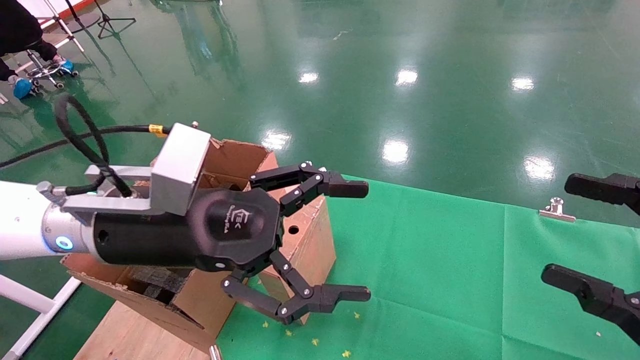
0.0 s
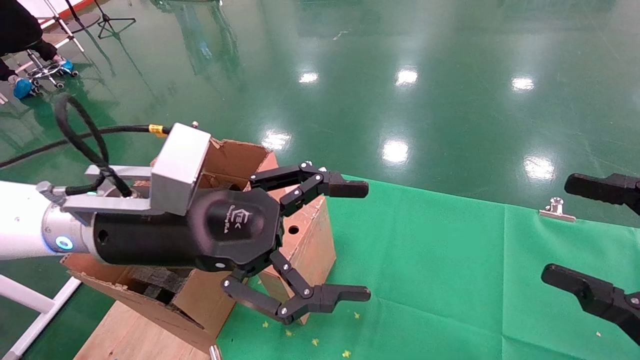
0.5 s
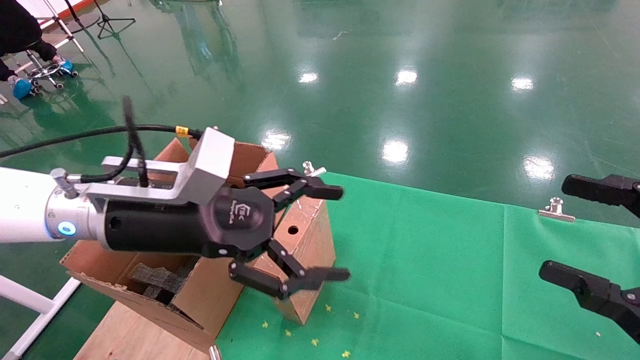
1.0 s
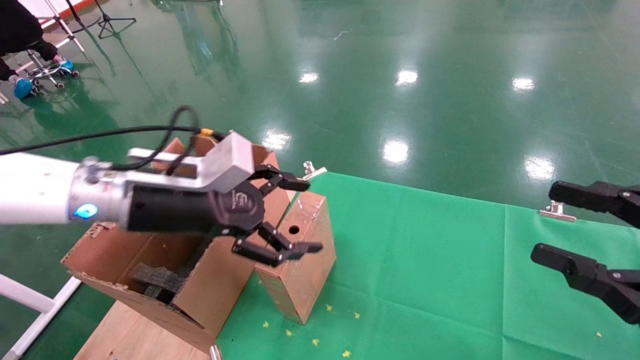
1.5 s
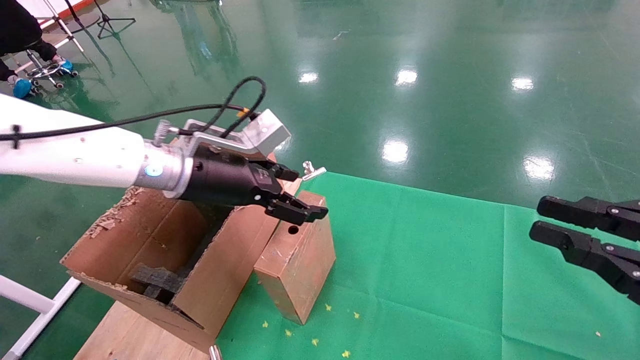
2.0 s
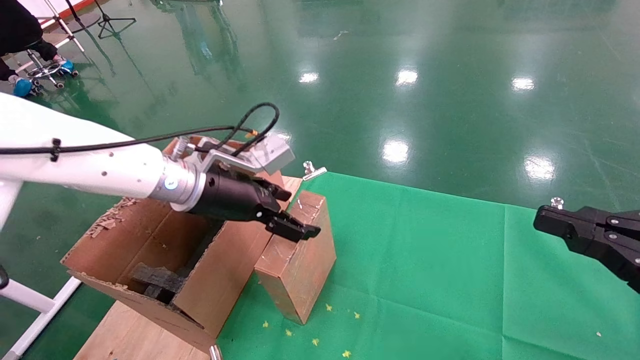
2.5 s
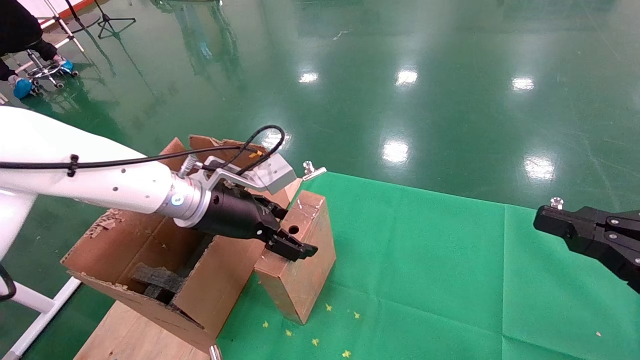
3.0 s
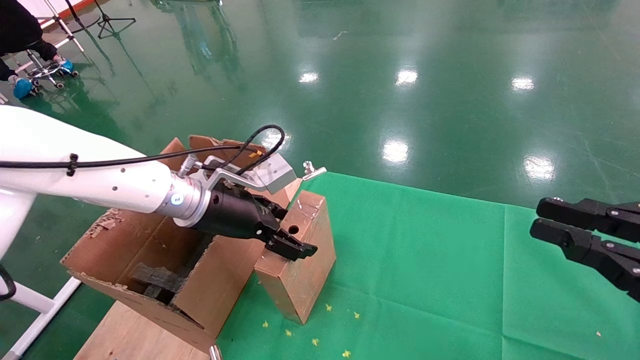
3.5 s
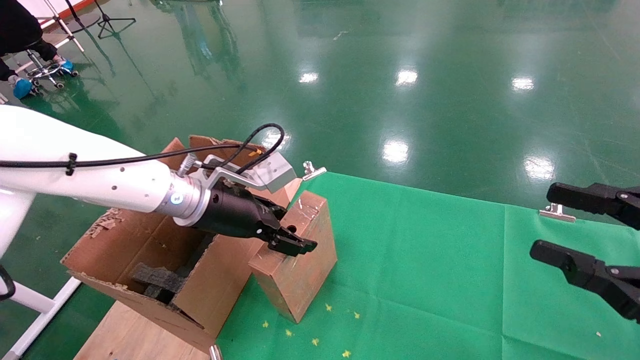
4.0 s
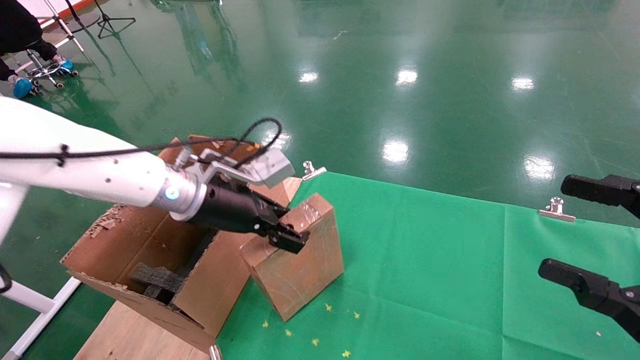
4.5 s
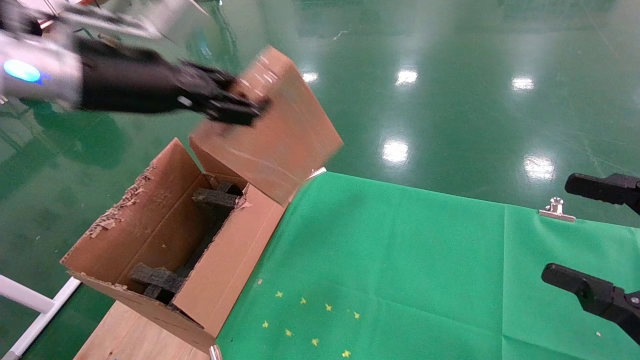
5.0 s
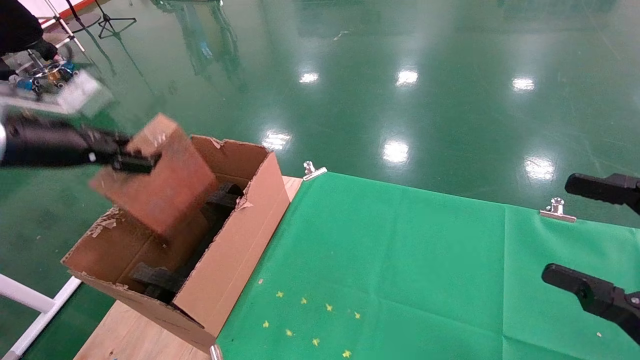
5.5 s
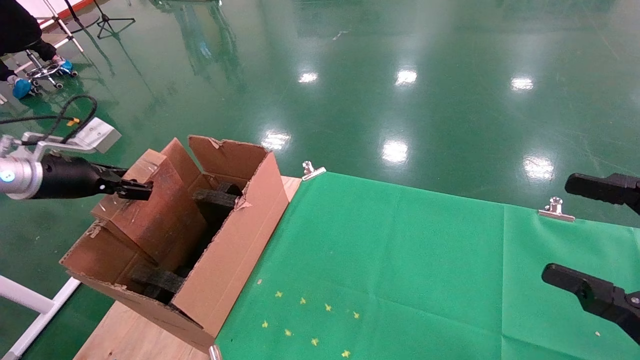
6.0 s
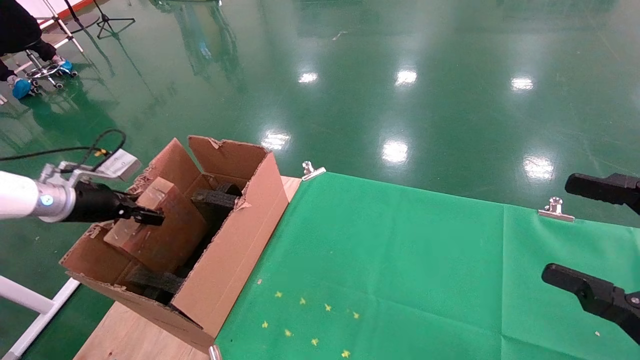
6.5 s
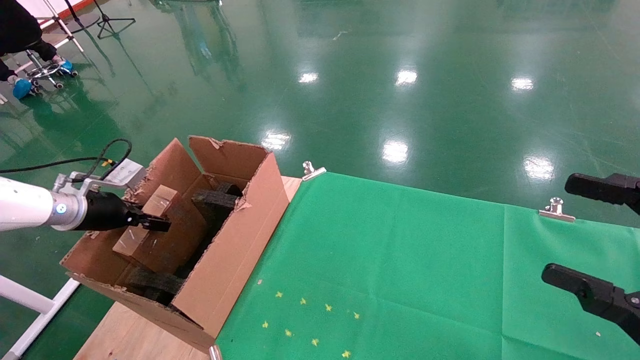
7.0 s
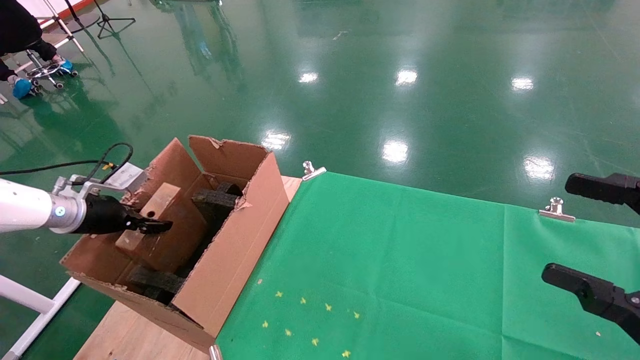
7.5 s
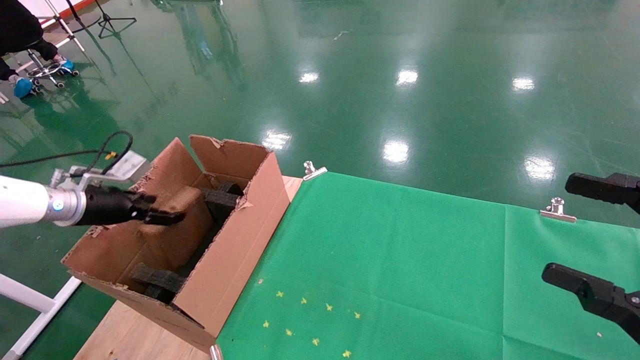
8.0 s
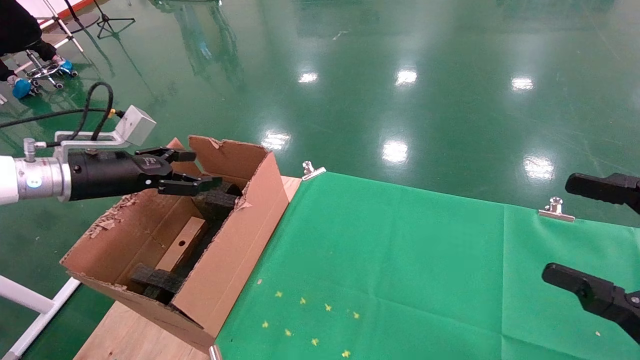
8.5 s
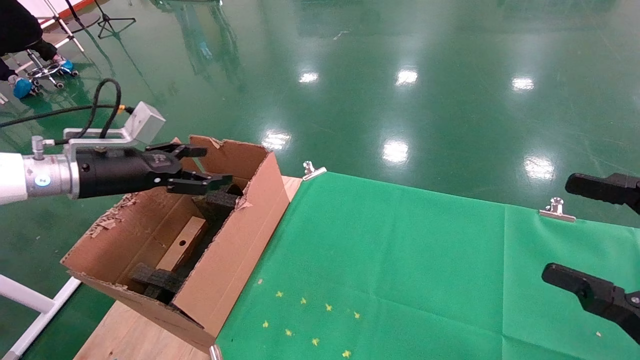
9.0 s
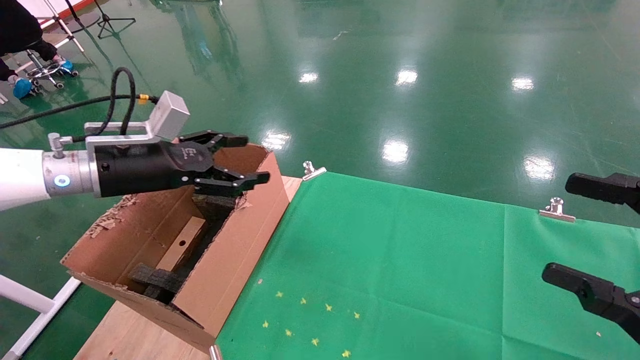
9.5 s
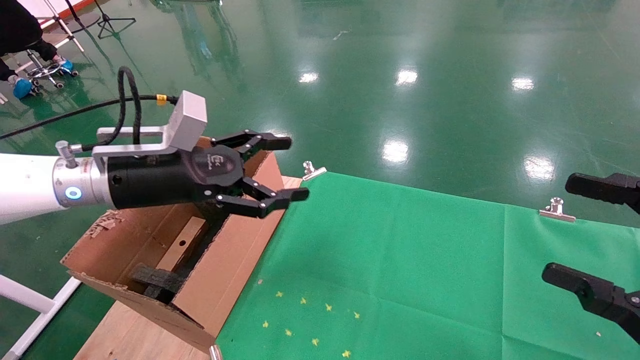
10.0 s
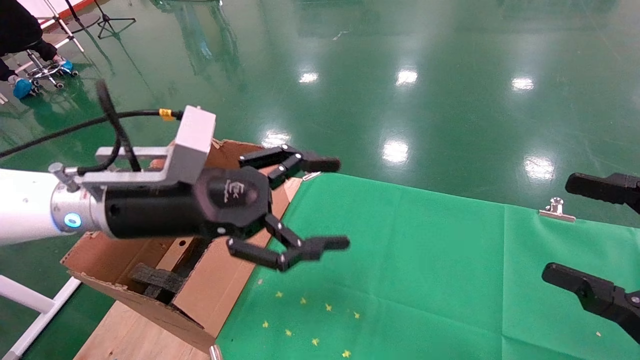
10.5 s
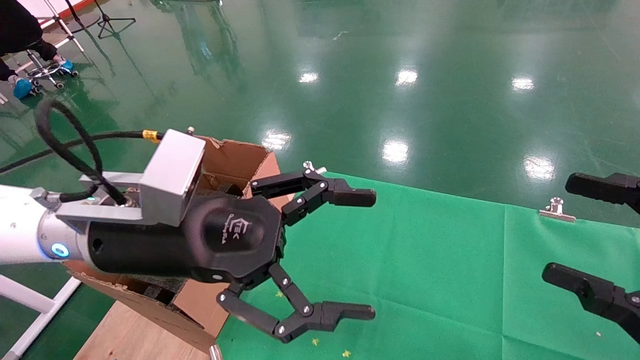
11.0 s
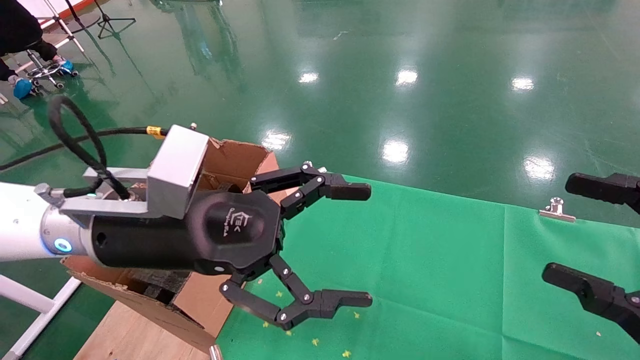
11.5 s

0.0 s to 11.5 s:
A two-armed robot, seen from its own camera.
Task of the whole recording: using a robotic arm to pick up a cardboard box and palace it the carton.
Step, 1.0 to 4.0 s: Pick up the mouse and the power cord paper box.
Step, 4.5 to 7.5 s: Place the mouse and the power cord paper box into the container.
0.0 to 2.0 s: The left gripper shifts some 10 cm forward. The right gripper closes its fingers.
2.0 to 4.0 s: The grippers move only a little.
4.0 to 6.0 s: The right gripper opens up. The left gripper is displaced to the left by about 30 cm, and closes its fingers.
6.0 to 7.5 s: The left gripper moves downward, roughly 10 cm.
7.5 to 9.5 s: The left gripper moves to the right and upward, approximately 20 cm, and opens.
9.5 to 11.5 s: The left gripper is displaced to the right and backward by some 20 cm.

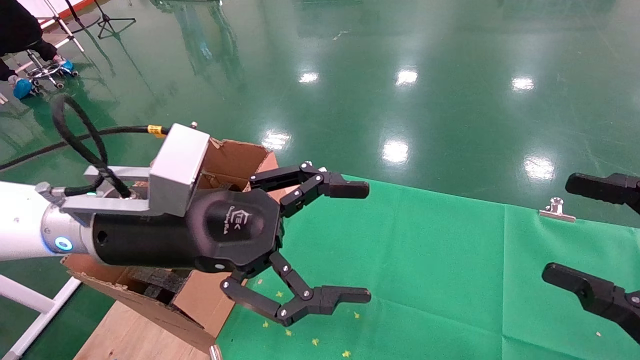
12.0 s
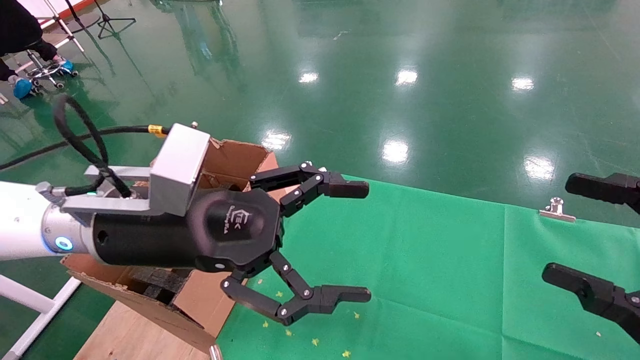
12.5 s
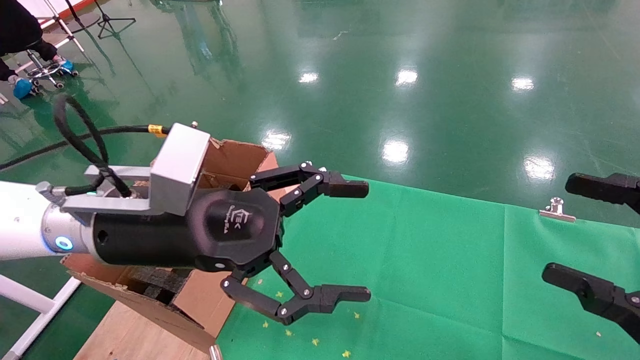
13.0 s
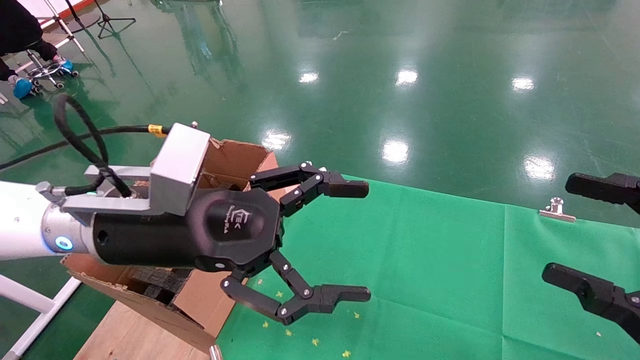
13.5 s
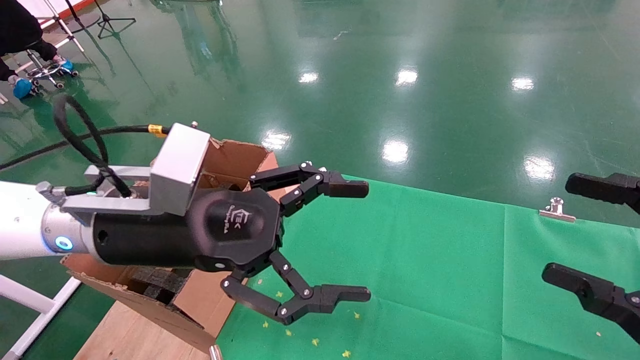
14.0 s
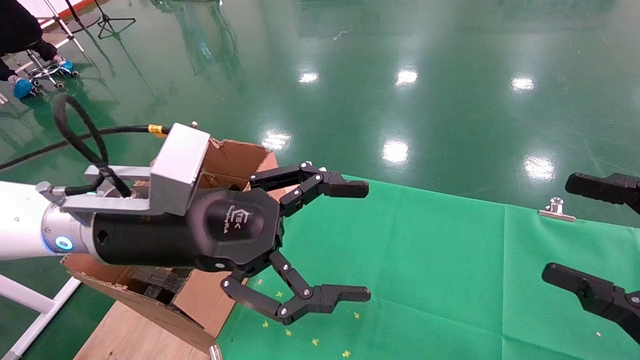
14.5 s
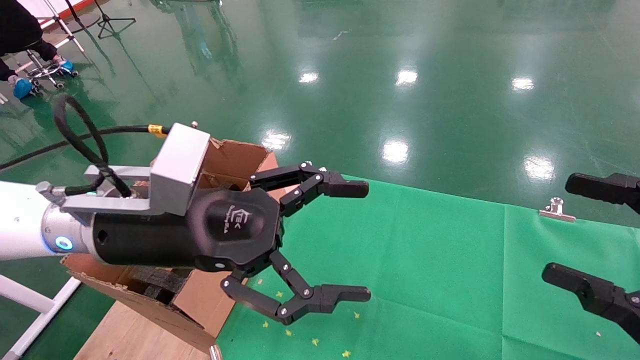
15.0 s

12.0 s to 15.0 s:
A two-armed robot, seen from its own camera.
Task of the whole recording: using a robotic arm to pick up a cardboard box and palace it the carton.
12.0 to 15.0 s: Neither gripper changes place.

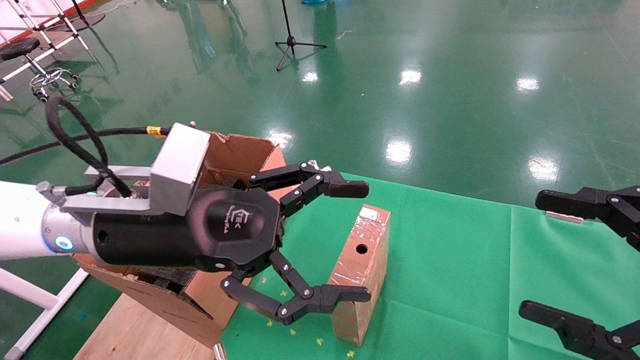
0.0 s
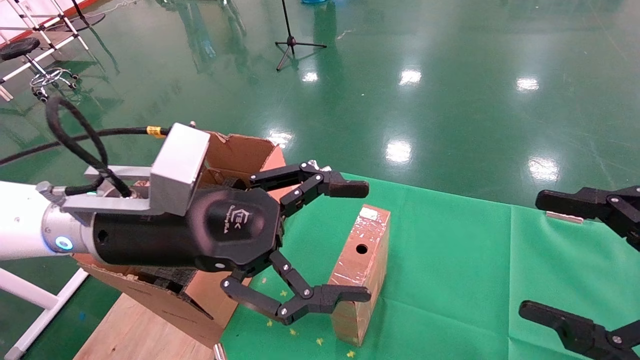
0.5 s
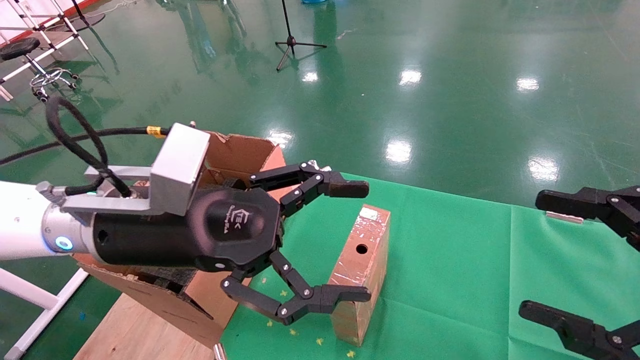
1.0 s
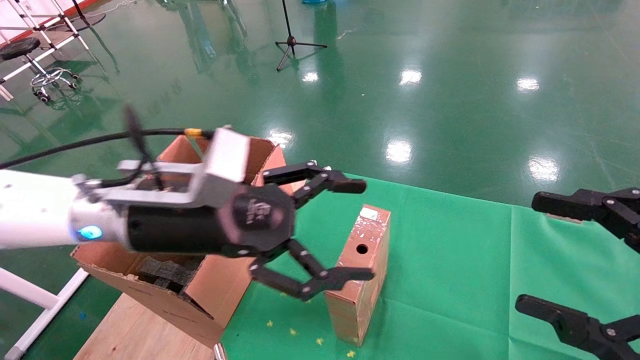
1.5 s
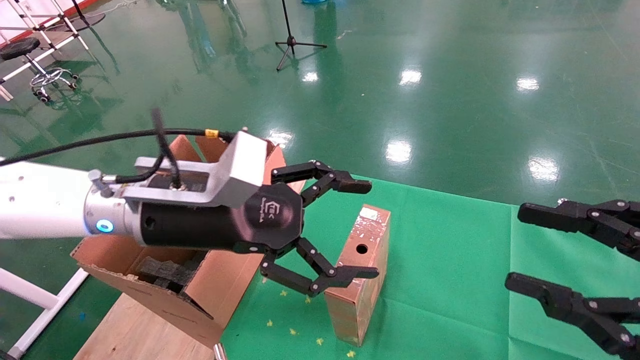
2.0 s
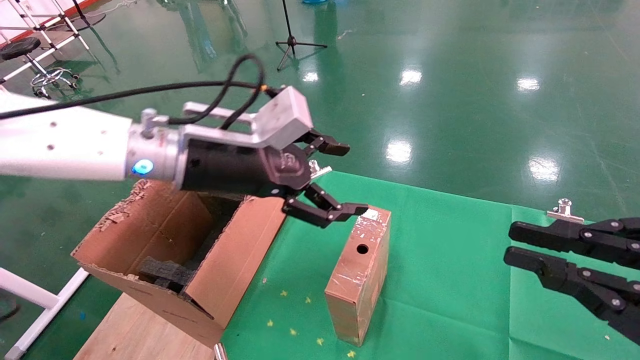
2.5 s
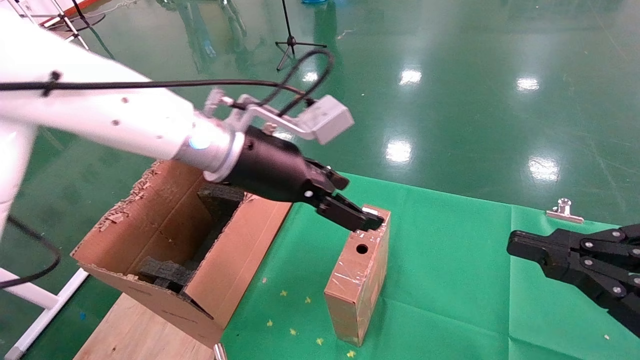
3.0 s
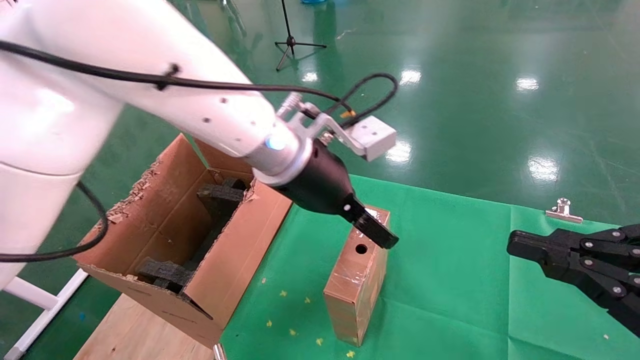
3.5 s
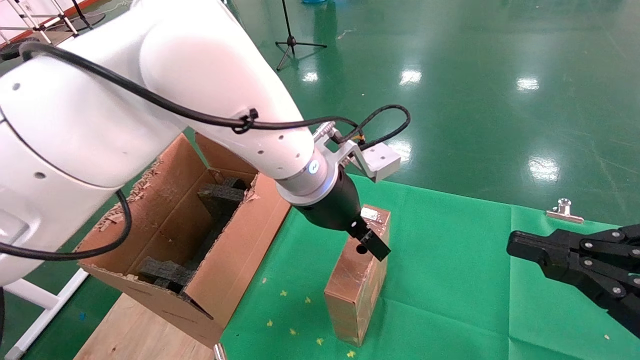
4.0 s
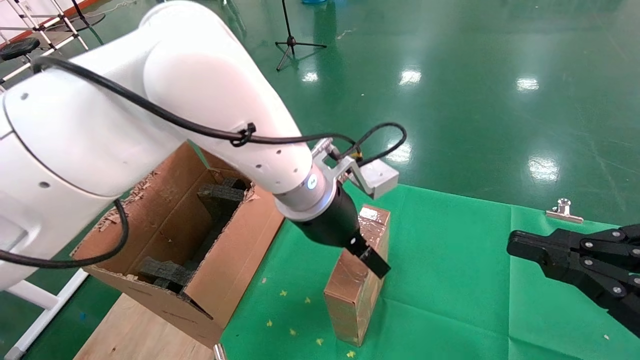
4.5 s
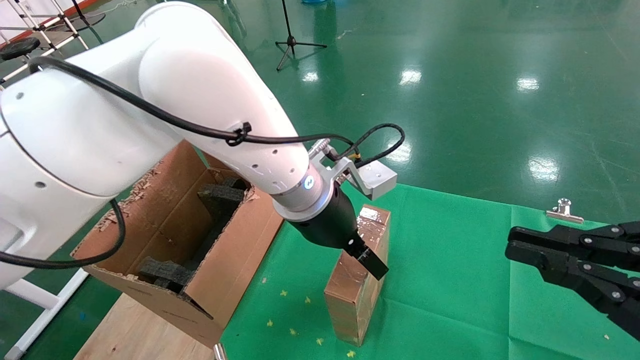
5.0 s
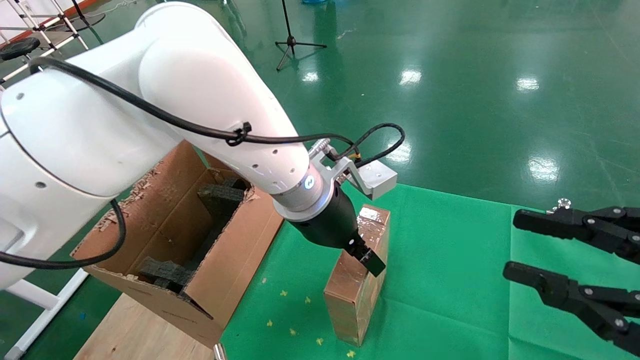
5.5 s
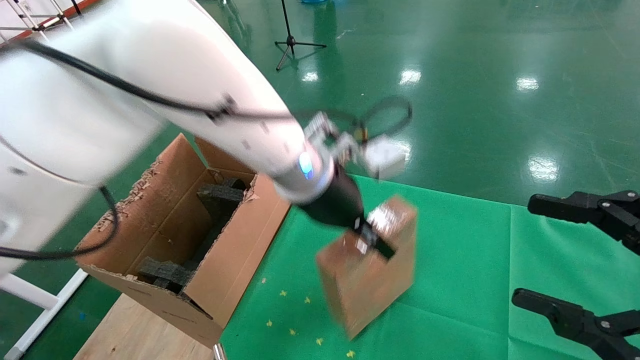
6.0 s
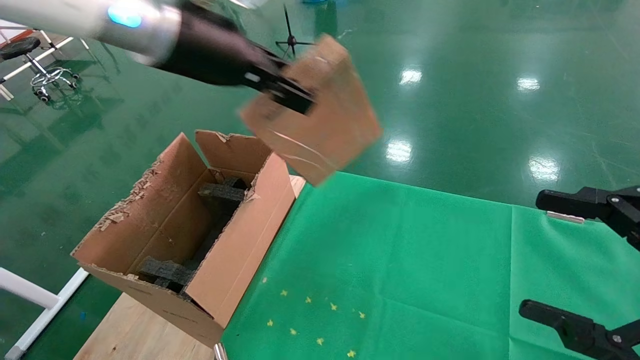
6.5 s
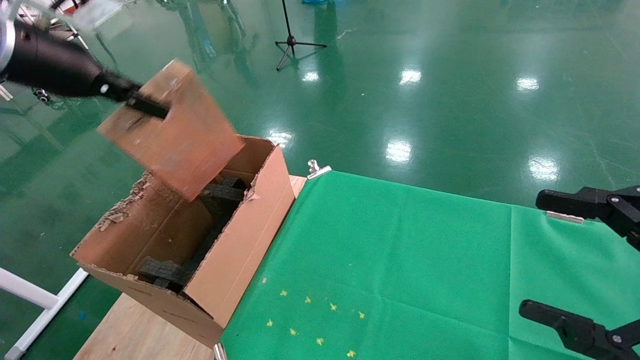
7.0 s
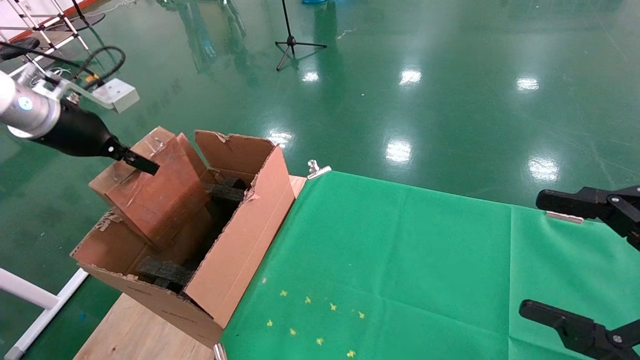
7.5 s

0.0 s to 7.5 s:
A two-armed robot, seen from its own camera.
Task of the whole recording: using a robotic arm to pick up a cardboard box and palace it the carton.
Step, 1.0 to 6.0 s: Pick up the mouse and the power cord paper box.
2.0 to 4.0 s: The left gripper goes some 15 cm to the right and forward; the right gripper closes its fingers.
5.5 to 7.5 s: The right gripper opens; the left gripper moves to the left, roughly 40 cm, and closes its fingers.
